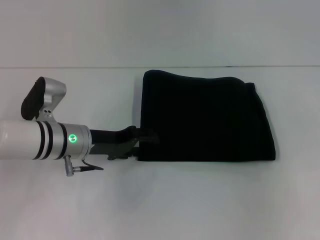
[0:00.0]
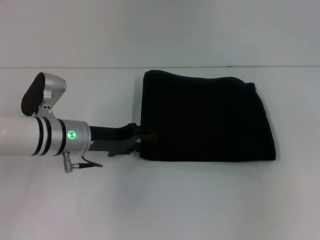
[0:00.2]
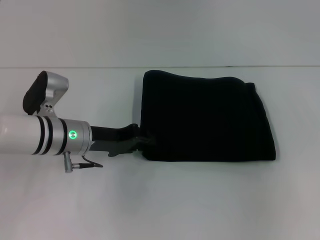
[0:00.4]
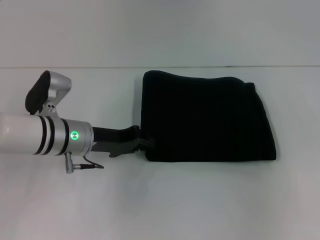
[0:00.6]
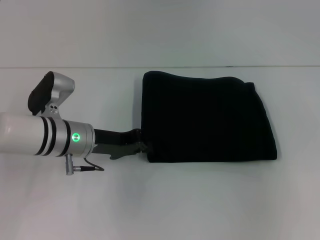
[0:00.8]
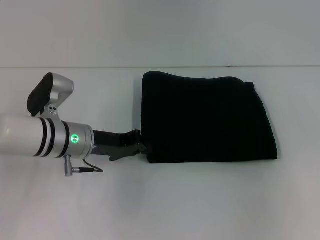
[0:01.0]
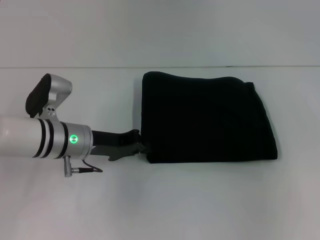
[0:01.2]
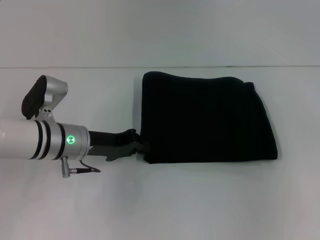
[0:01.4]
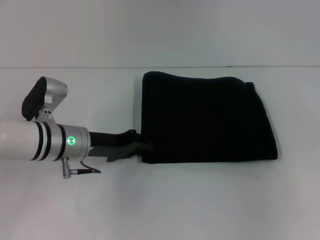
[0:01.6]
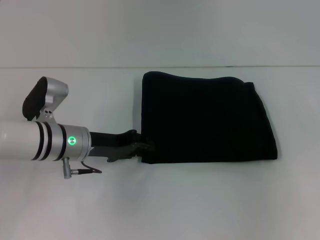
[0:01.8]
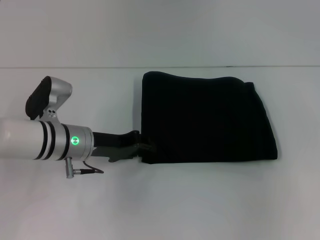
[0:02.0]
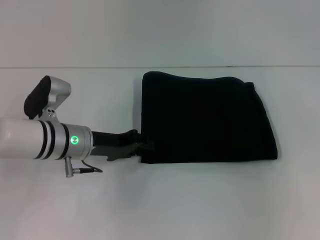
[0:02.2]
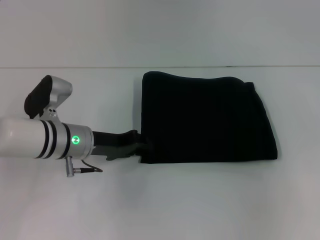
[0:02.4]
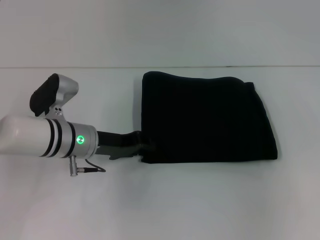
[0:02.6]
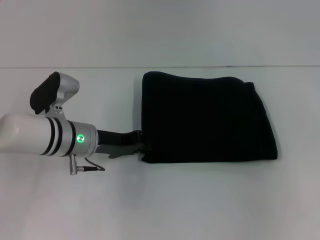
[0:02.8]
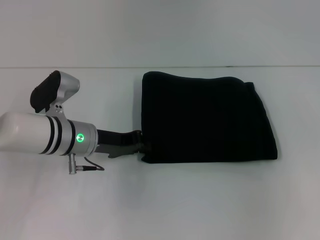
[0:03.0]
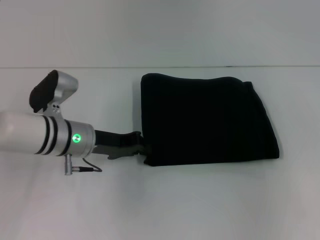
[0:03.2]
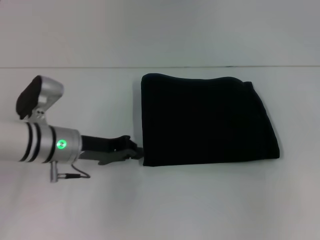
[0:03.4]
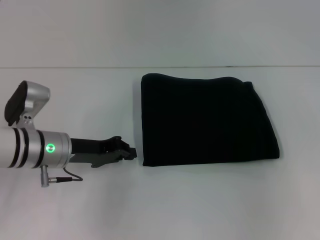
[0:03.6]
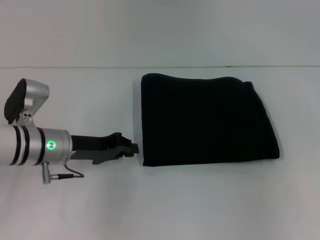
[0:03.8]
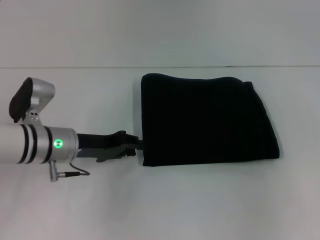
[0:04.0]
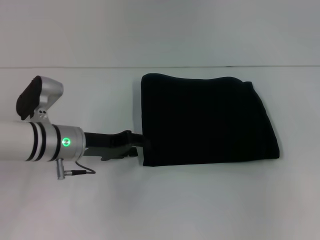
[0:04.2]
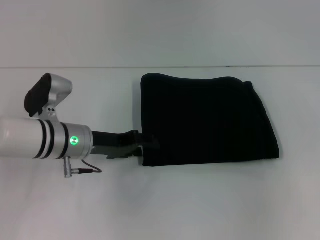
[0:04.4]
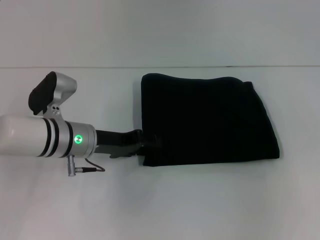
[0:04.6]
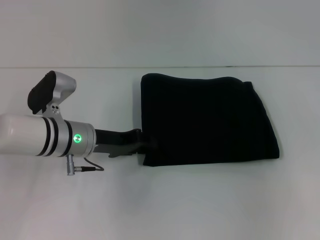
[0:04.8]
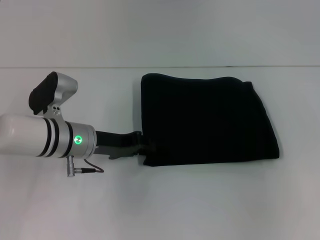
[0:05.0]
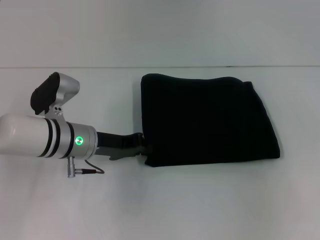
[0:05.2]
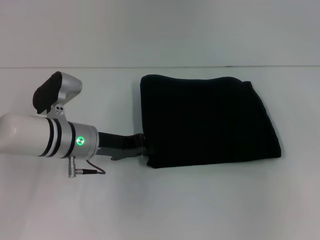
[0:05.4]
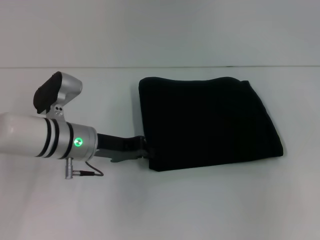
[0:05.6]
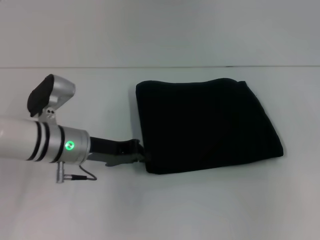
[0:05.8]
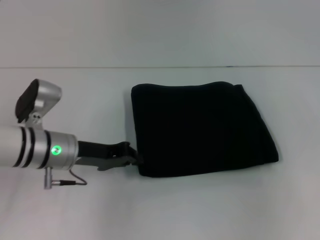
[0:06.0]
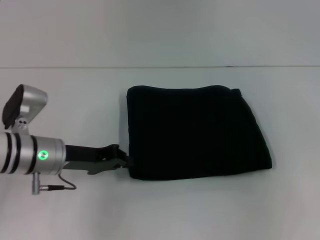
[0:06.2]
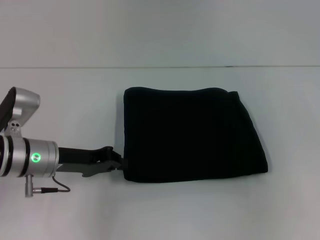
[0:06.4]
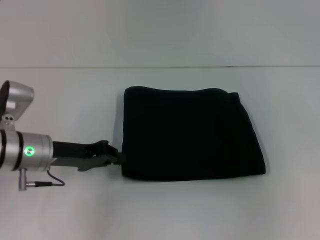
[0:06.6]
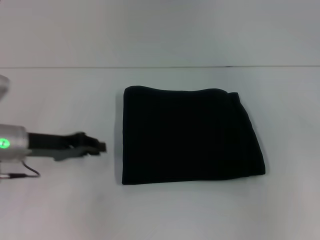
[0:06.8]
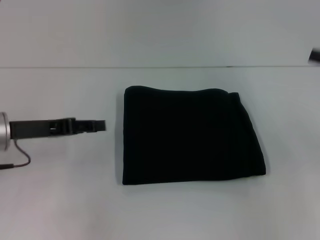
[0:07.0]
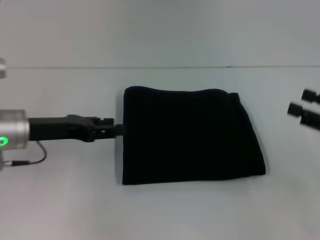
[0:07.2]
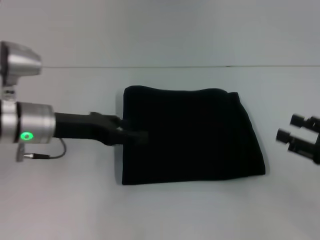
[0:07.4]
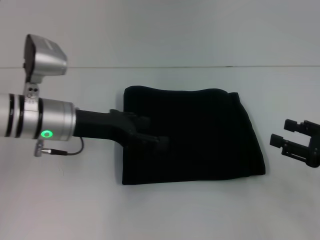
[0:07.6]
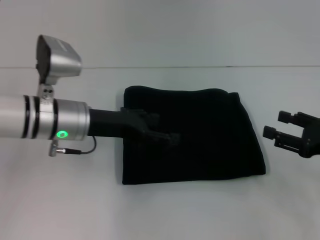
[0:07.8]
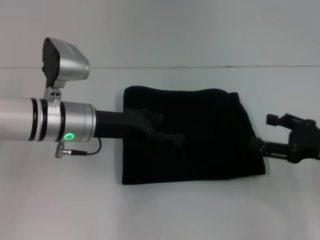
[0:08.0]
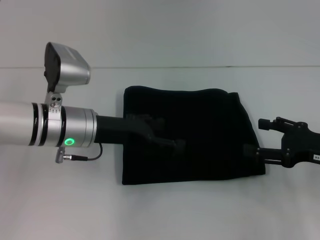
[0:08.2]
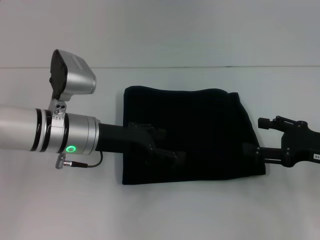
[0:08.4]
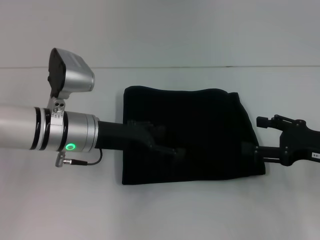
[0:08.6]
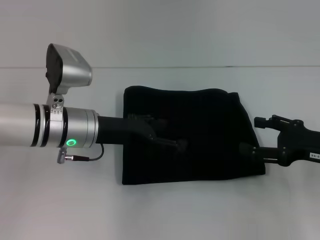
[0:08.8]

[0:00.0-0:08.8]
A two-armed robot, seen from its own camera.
0.0 to 1.4 s: The left gripper closes its fingers.
1.4 to 3.0 s: The grippers make only small movements.
3.0 to 4.4 s: The left gripper opens its fingers.
4.4 to 5.8 s: The left gripper closes up.
5.8 to 7.4 s: The left gripper opens, while the right gripper shifts roughly 20 cm downward, backward and to the left.
7.4 to 8.8 s: The right gripper changes place by about 5 cm. The left gripper travels to the right by about 5 cm, and opens.

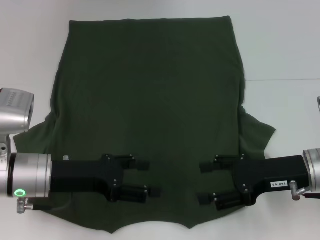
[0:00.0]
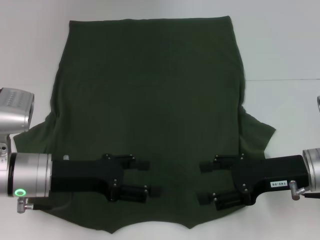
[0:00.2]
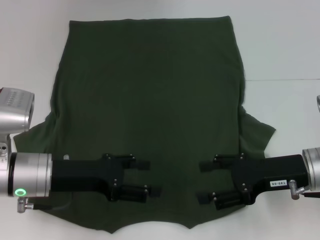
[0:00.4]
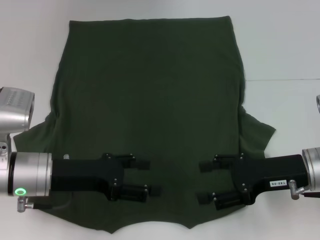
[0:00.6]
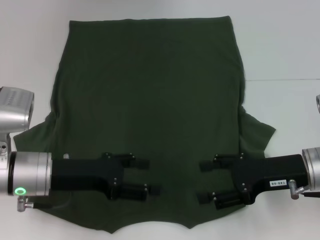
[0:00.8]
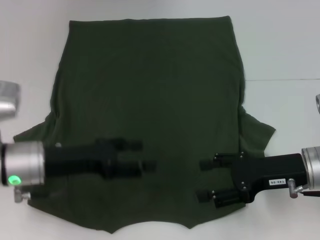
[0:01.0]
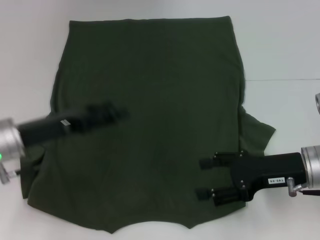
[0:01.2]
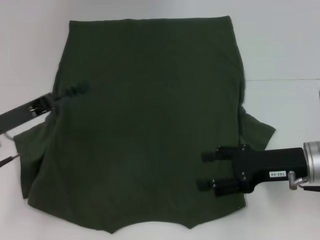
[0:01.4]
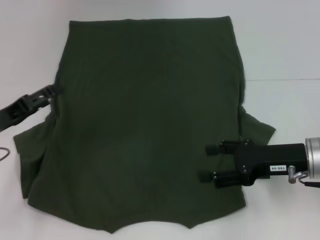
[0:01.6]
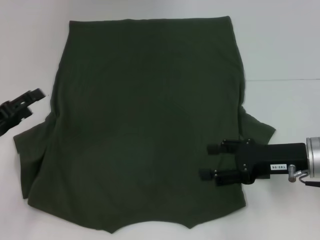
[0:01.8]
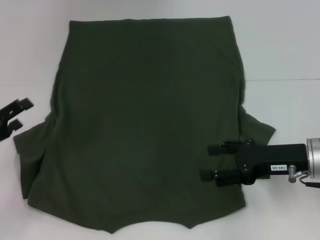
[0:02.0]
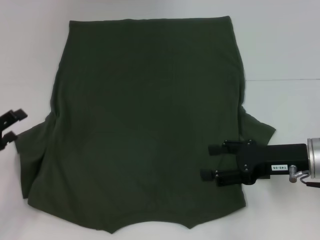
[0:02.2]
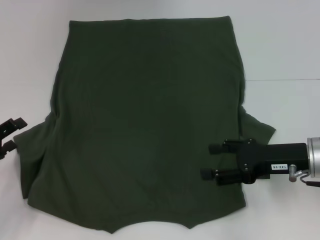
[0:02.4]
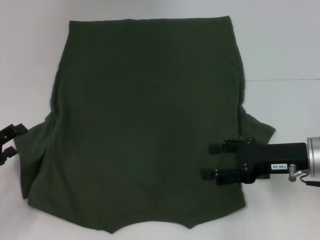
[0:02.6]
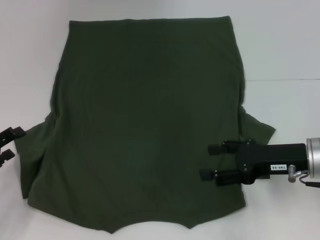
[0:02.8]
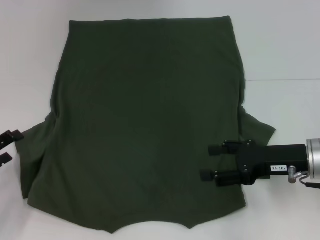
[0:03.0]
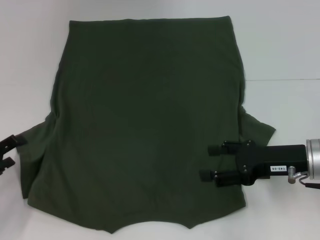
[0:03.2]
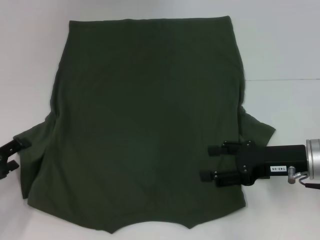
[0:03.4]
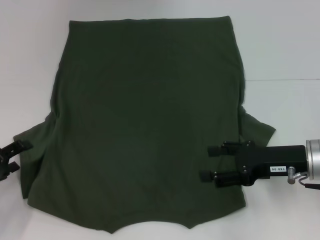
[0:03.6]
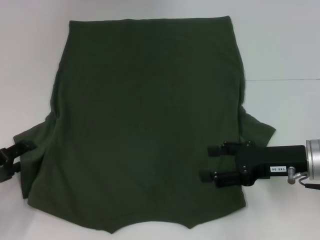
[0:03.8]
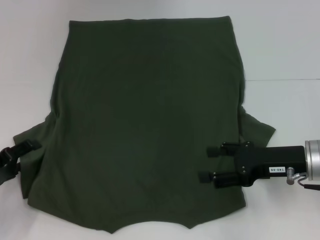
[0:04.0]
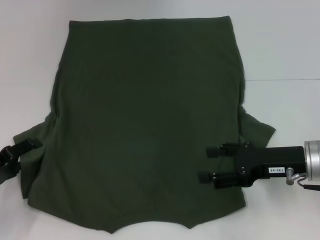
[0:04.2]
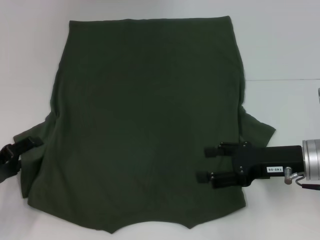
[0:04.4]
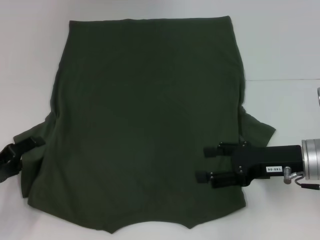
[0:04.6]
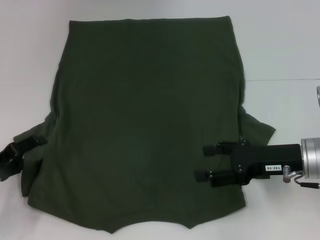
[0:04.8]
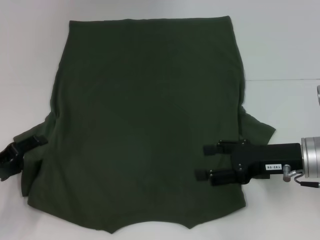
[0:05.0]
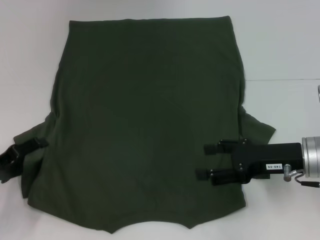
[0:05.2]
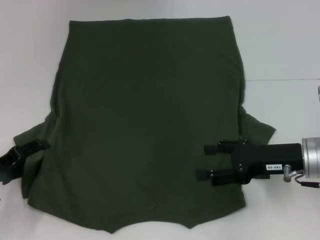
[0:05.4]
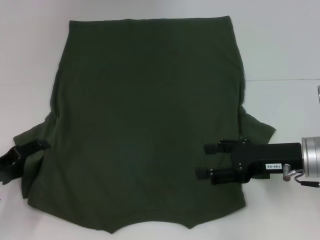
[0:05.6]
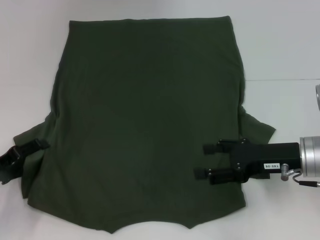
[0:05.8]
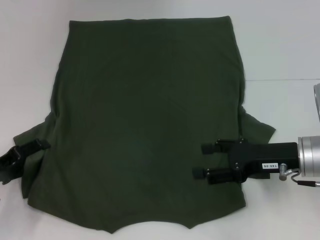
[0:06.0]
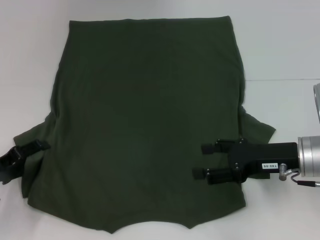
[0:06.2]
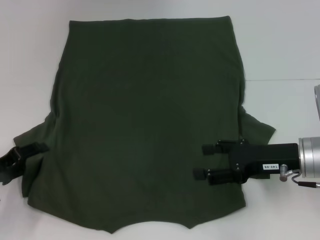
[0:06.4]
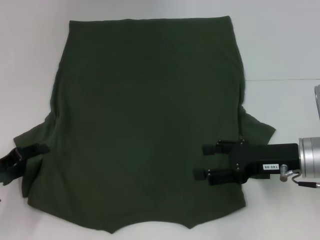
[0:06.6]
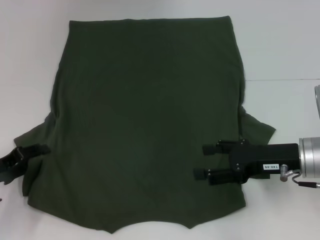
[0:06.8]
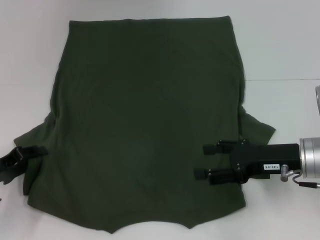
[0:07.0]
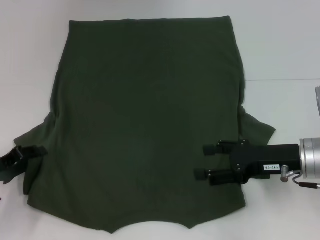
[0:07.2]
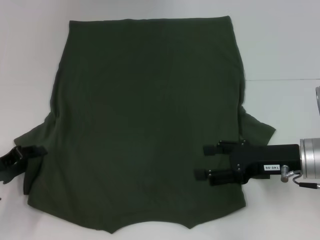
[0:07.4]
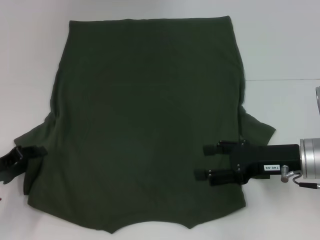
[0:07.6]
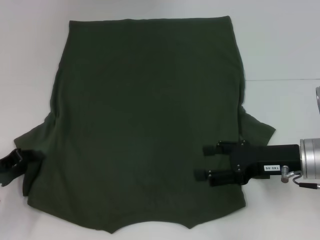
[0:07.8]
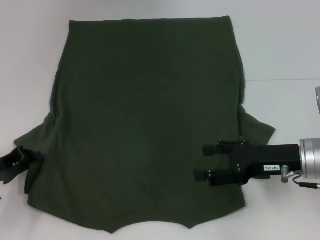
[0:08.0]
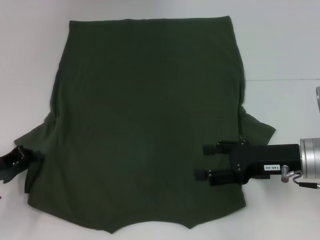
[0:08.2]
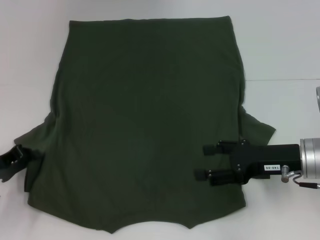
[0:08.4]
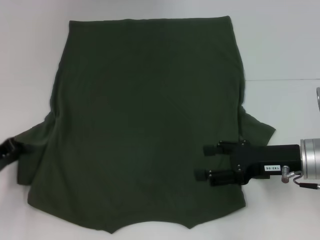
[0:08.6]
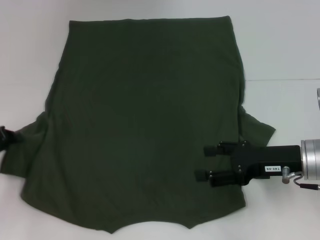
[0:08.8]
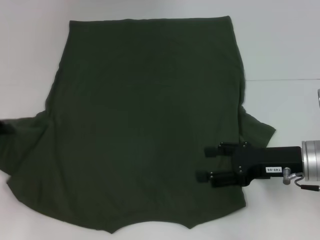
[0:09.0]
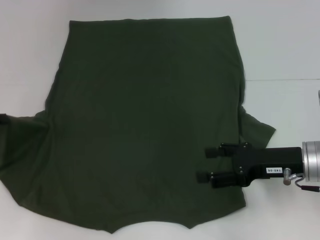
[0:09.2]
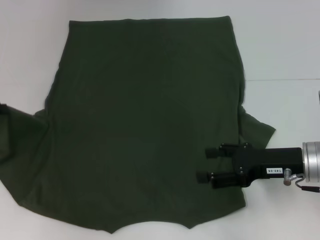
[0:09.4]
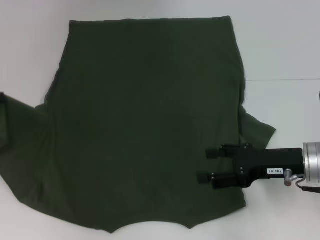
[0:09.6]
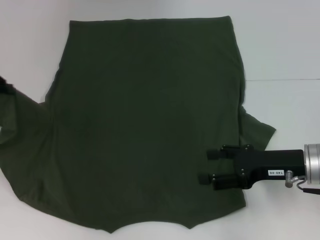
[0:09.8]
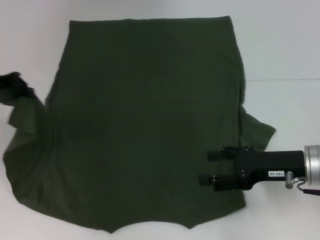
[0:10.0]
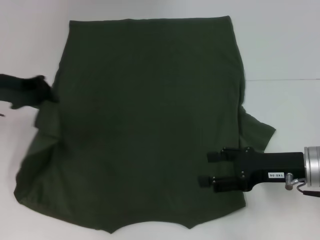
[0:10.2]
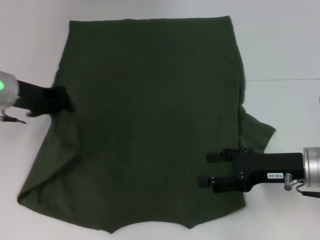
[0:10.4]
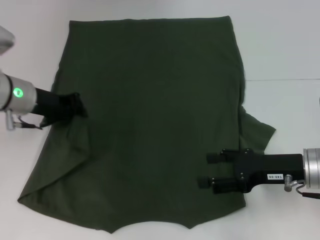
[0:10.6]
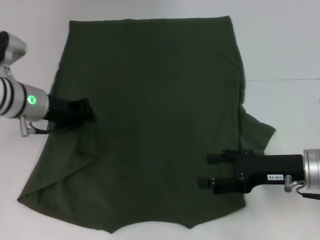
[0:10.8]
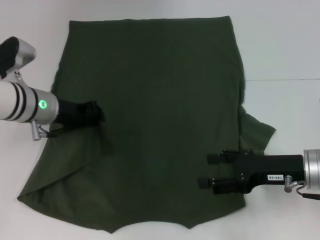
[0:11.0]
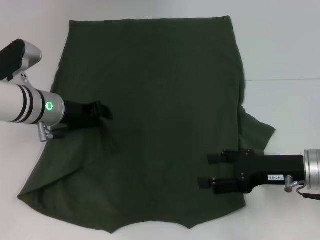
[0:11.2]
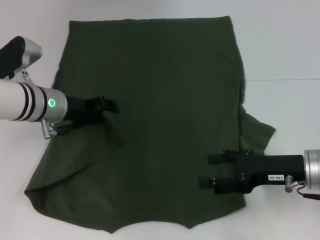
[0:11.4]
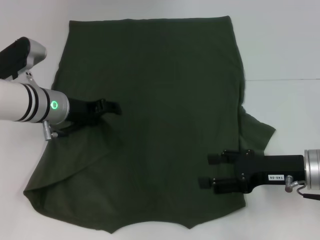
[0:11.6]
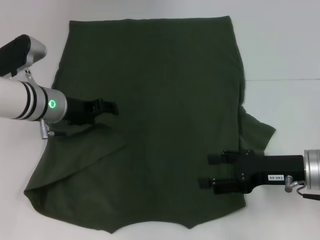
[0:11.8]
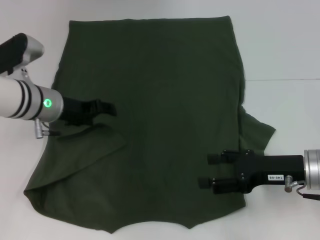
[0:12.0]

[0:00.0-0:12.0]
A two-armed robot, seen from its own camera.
0.0 to 1.6 s: The left gripper moves to the left, some 10 cm.
1.6 to 3.0 s: The left gripper ends up about 10 cm from where it was.
3.0 to 4.4 s: The grippers move only a little.
4.4 to 6.0 s: The two grippers keep their place.
6.0 to 7.6 s: The left gripper closes.
7.6 to 9.0 s: The left gripper is displaced upward by about 5 cm, and closes.
9.0 to 10.4 s: The left gripper moves to the right, forward and upward, roughly 15 cm.
10.4 to 12.0 s: The left gripper shifts approximately 5 cm to the right, and opens up.

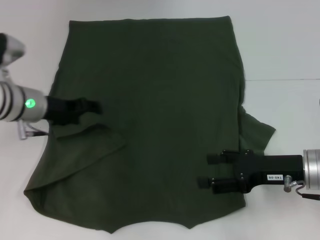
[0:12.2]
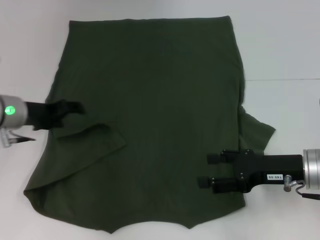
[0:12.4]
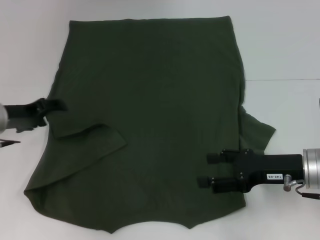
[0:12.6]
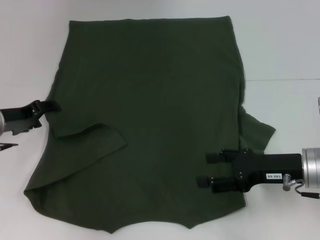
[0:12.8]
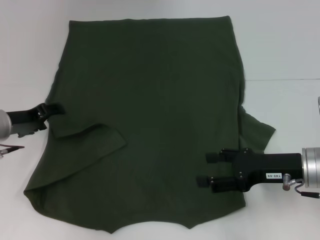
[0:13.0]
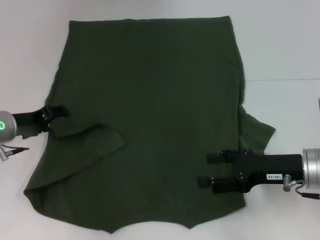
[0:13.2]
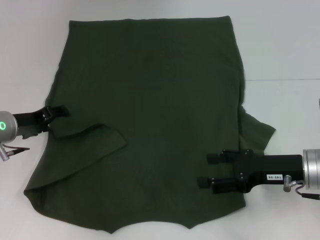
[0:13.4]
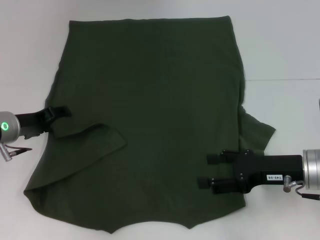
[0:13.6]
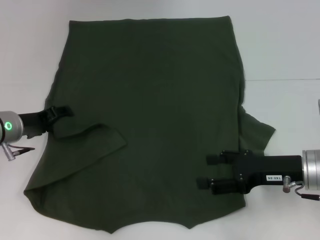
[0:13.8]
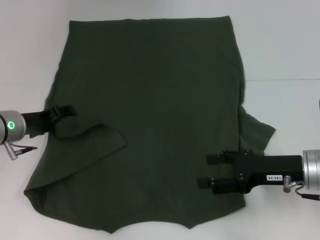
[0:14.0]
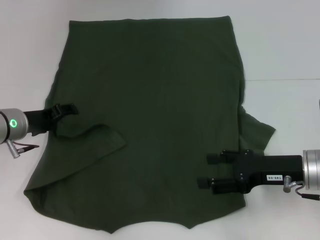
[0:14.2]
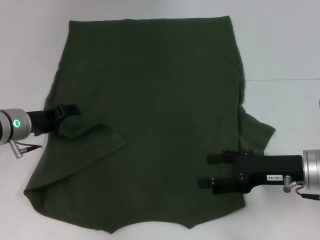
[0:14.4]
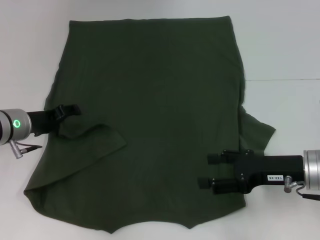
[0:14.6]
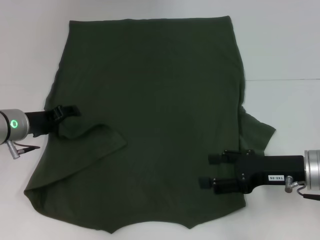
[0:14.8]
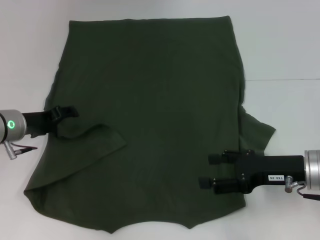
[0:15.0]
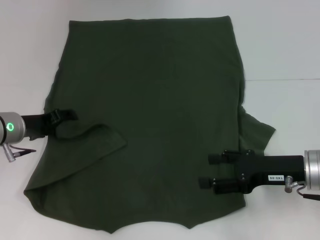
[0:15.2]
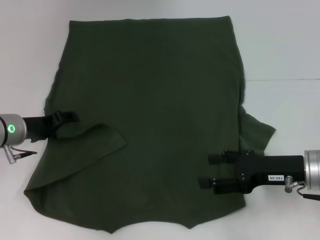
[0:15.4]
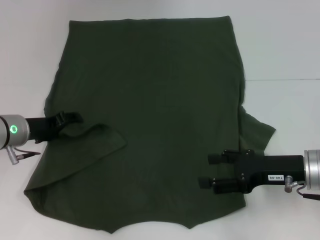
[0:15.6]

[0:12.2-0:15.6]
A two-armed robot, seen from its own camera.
12.2 to 13.8 s: The left gripper changes place by roughly 5 cm.
13.8 to 15.6 s: Neither gripper changes place.
